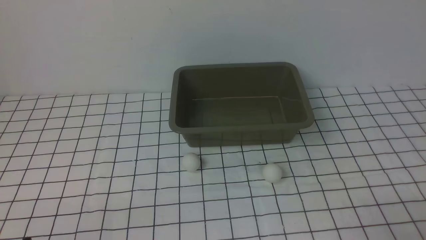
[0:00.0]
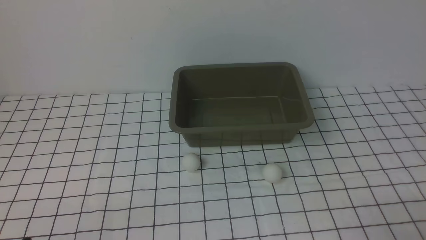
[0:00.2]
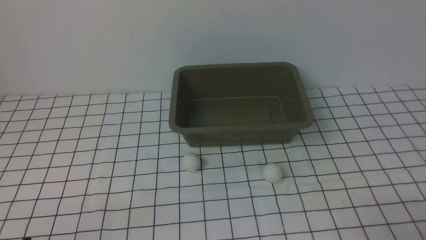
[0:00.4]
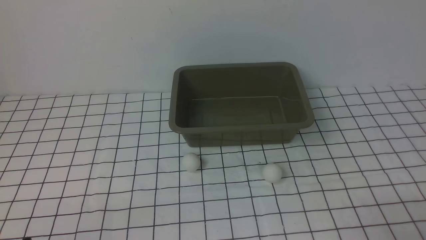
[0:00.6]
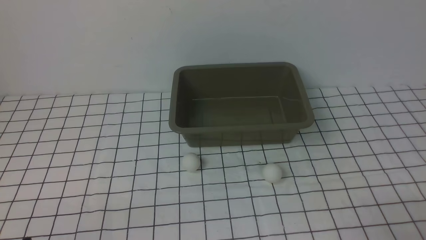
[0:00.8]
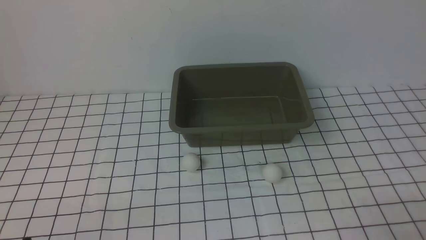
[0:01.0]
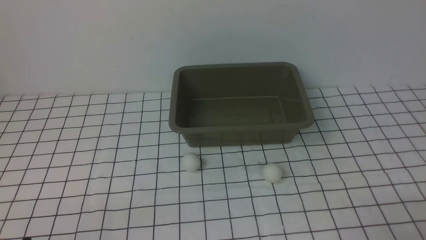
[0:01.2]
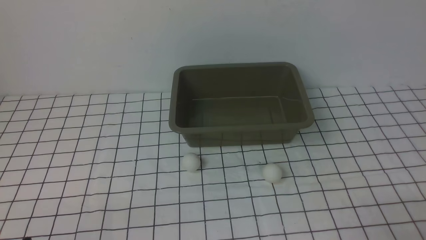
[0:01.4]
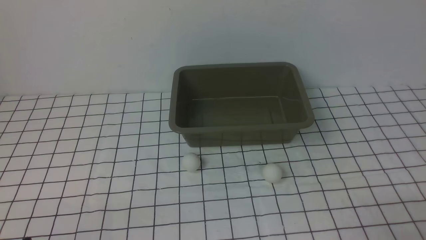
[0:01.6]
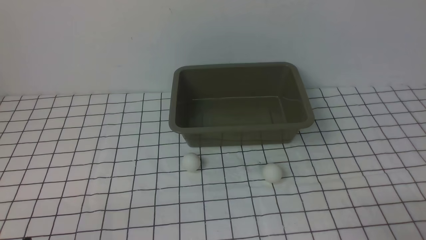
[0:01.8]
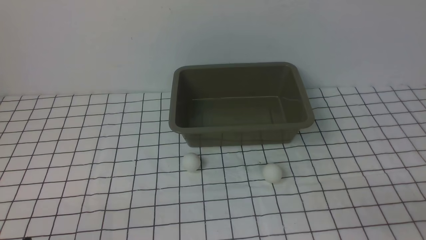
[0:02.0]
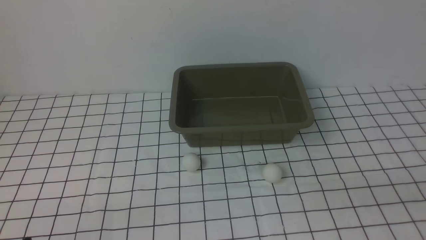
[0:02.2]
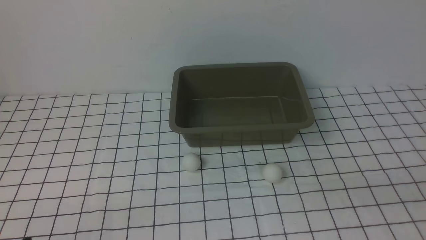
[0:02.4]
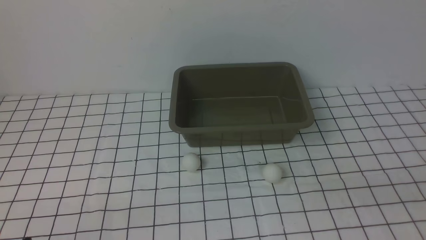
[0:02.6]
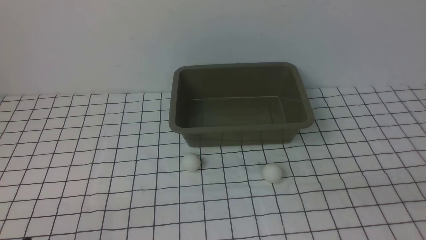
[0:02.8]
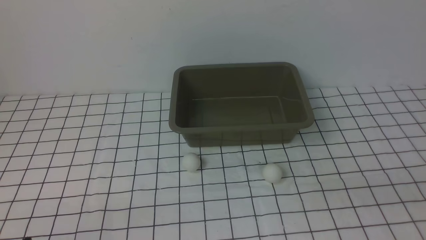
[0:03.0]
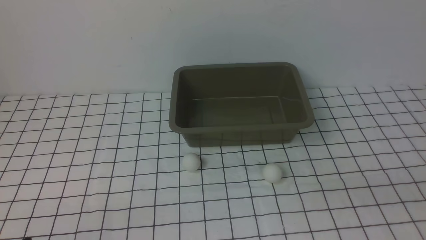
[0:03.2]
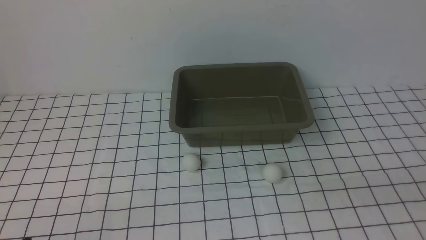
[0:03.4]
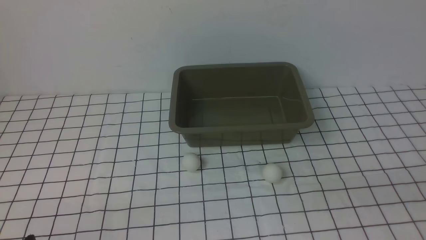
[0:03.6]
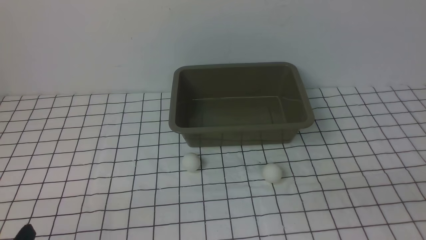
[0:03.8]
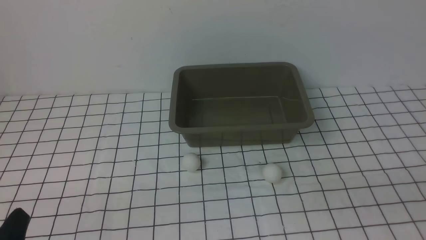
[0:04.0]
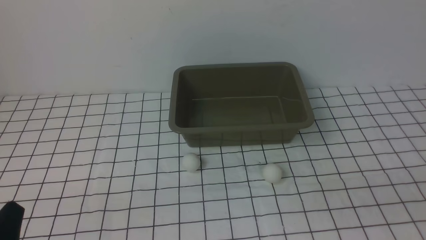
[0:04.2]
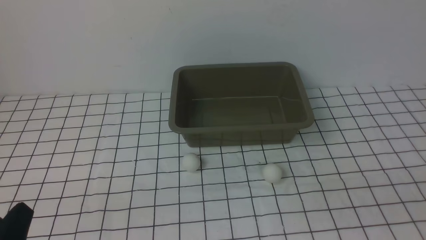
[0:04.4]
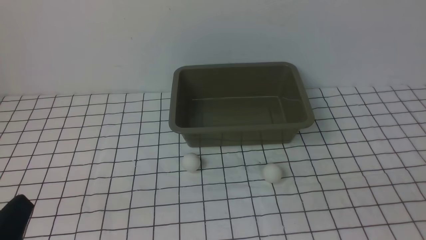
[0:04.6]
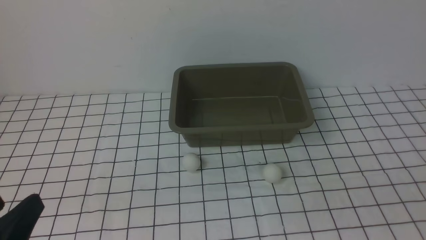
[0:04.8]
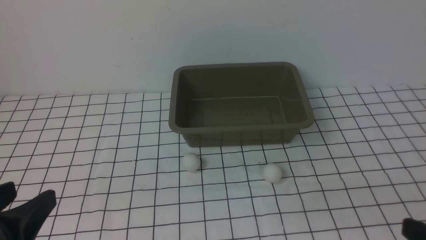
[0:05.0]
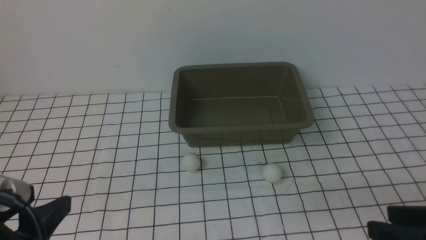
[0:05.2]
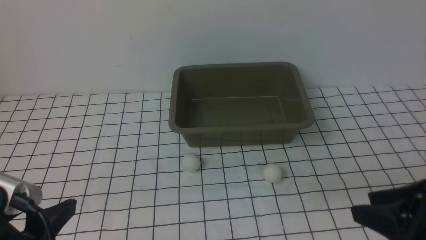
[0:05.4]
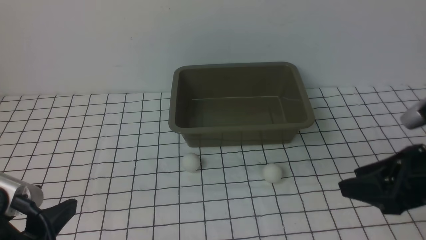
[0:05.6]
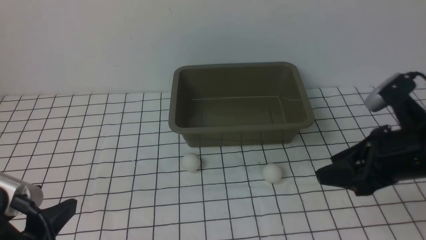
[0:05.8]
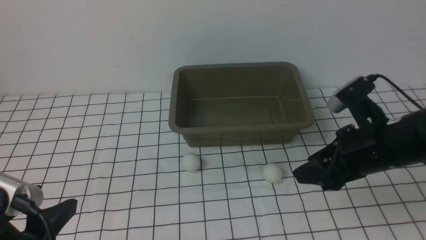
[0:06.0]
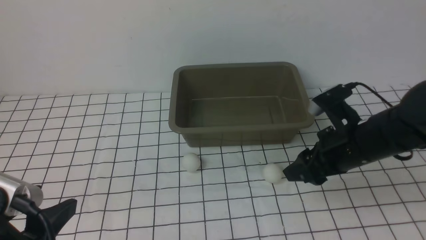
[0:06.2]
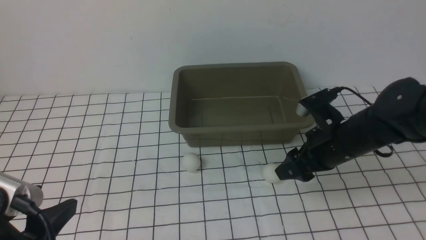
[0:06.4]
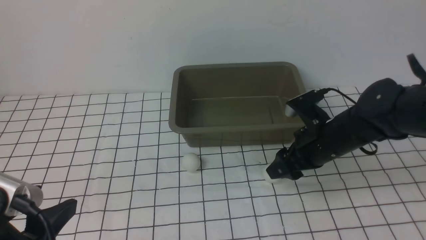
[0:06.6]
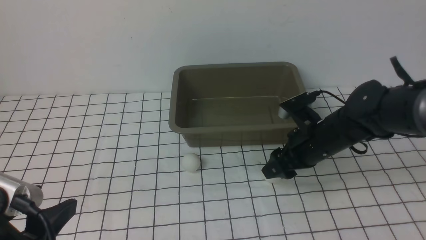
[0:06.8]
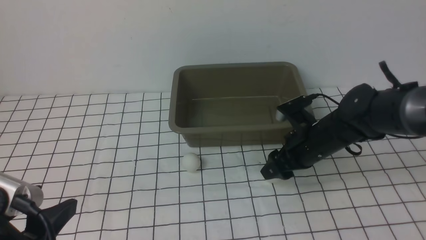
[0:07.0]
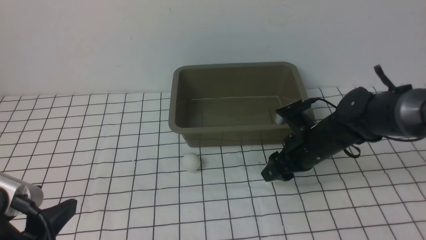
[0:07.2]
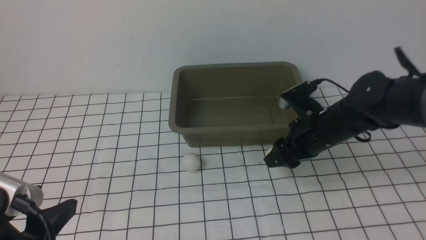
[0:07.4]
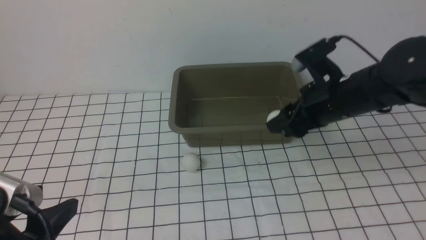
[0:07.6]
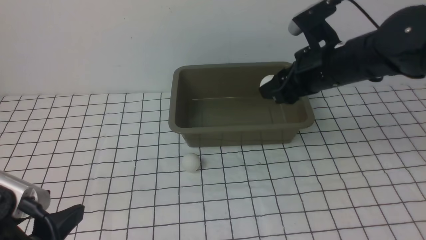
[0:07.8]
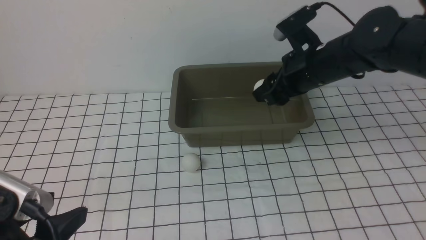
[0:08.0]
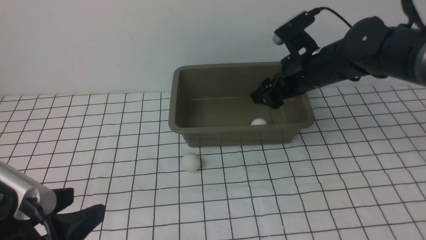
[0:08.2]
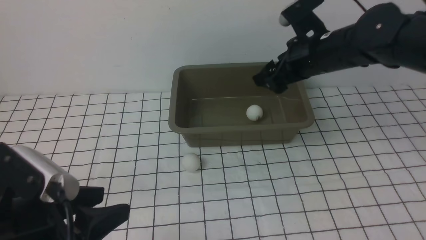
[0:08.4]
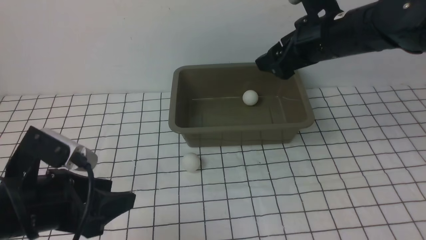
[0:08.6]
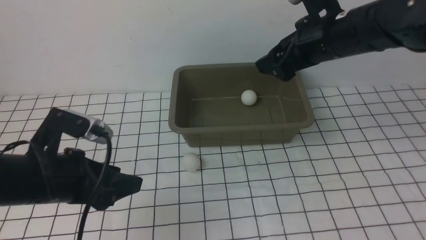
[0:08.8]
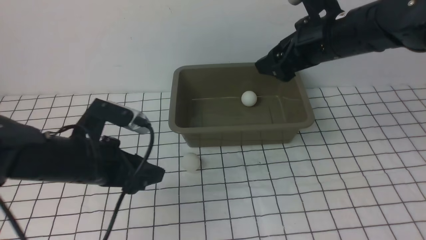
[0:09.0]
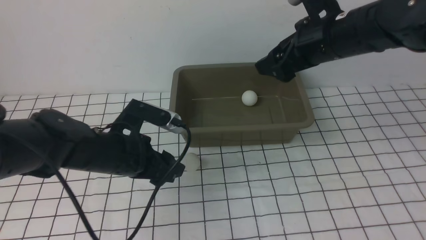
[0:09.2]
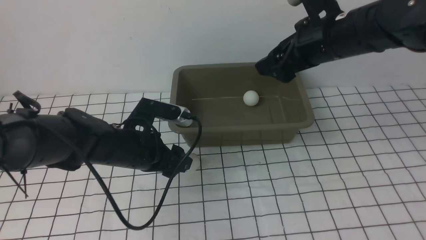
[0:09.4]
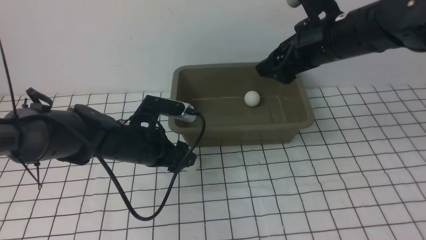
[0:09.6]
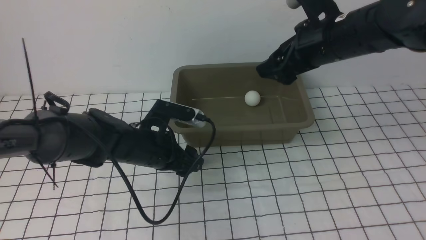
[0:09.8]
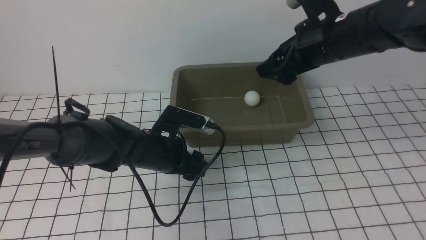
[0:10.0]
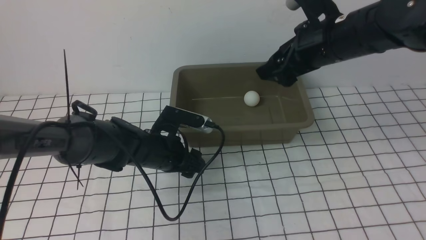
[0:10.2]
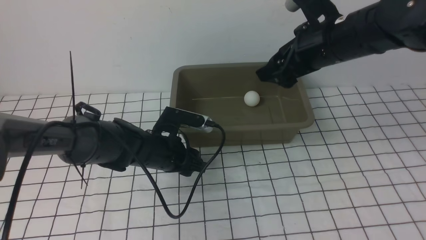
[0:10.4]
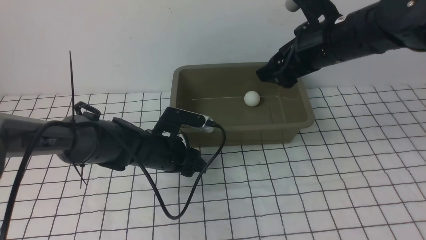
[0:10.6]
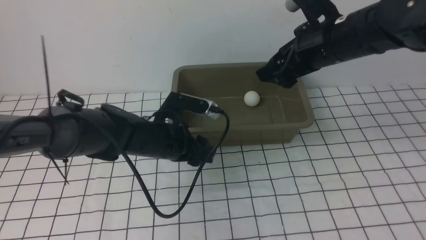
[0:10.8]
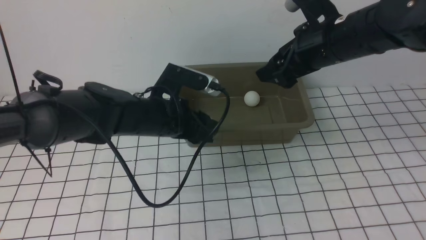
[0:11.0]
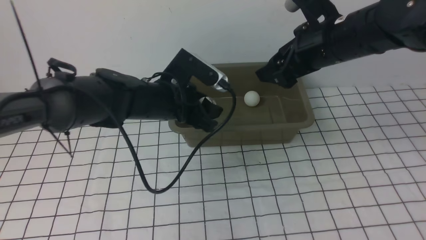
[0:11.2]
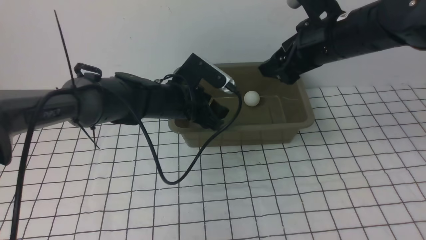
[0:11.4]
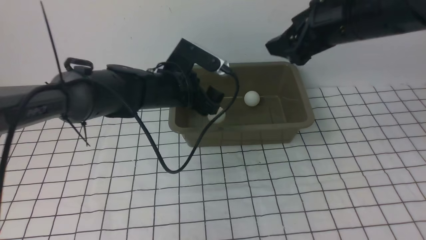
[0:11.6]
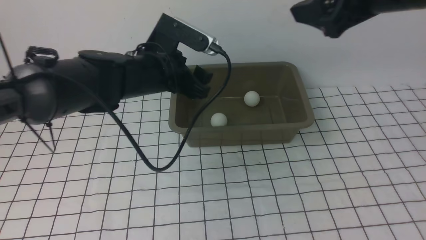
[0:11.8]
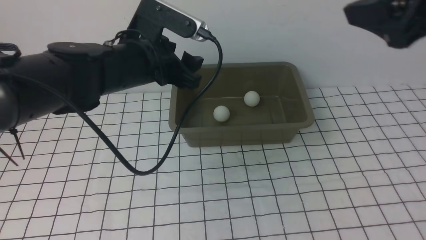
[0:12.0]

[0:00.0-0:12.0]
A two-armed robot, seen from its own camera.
Step, 0:00.0 to 0:07.4: use the right arm to clamp the table tennis ball closest to it.
Step, 0:07.8 to 0:08.2: use the right arm to put the table tennis ball into the box.
Step, 0:08.4 to 0:10.8: use the left arm to clamp the table tennis ball closest to it.
Step, 0:11.0 to 0:11.6: use the left arm to put the table tennis ball into the box.
0:00.0 to 0:01.6: The two grippers keep their place.
0:04.4 to 0:06.0: The left gripper is displaced upward by roughly 5 cm. Meanwhile the right gripper heads forward, covering approximately 25 cm.
0:06.0 to 0:07.6: The right gripper goes approximately 10 cm forward, and travels downward and back again, roughly 10 cm each way.
0:07.6 to 0:09.0: The left gripper shifts some 20 cm forward; the right gripper travels upward by about 5 cm, and opens.
0:09.0 to 0:10.4: The left gripper heads downward, forward and to the right, covering about 10 cm, and closes.
0:10.4 to 0:12.0: The left gripper is displaced upward by some 15 cm, and opens its fingers, while the right gripper travels backward, upward and to the right by about 20 cm.

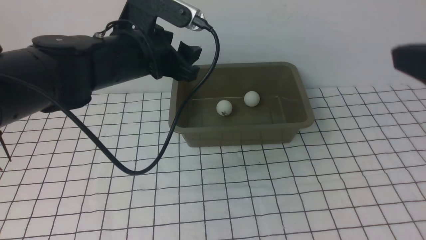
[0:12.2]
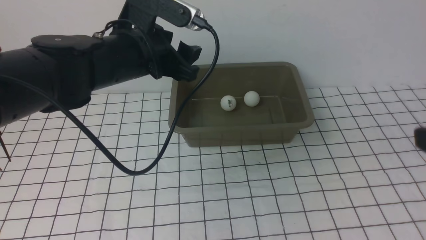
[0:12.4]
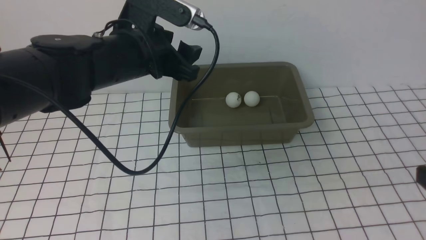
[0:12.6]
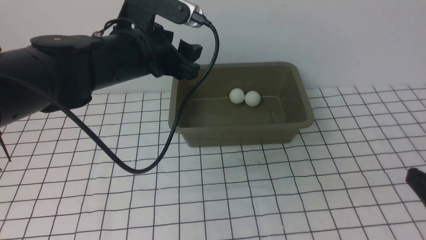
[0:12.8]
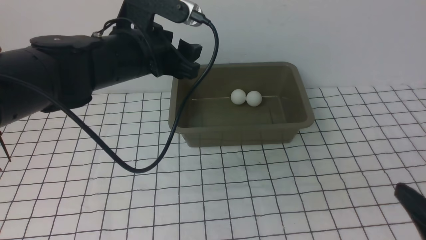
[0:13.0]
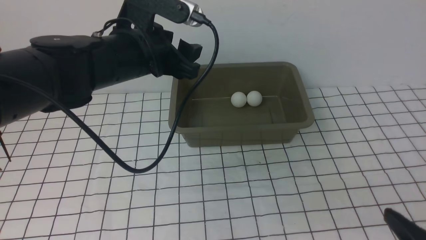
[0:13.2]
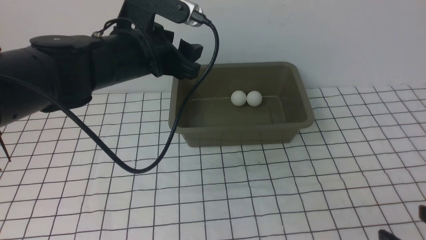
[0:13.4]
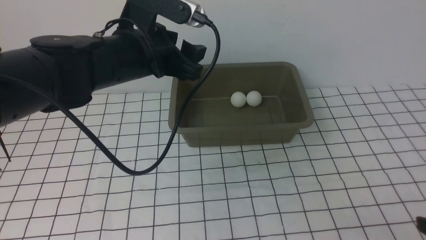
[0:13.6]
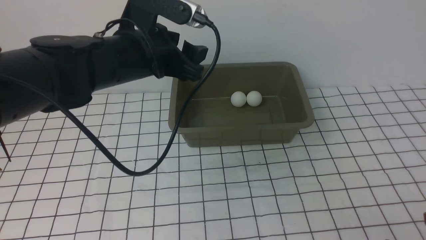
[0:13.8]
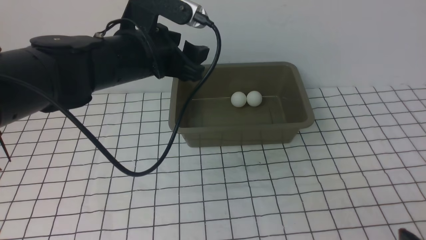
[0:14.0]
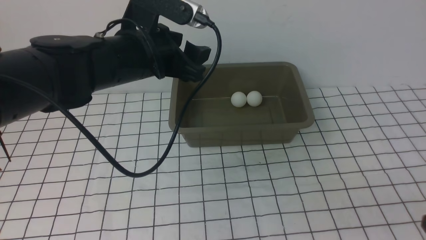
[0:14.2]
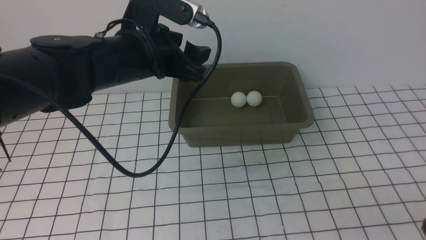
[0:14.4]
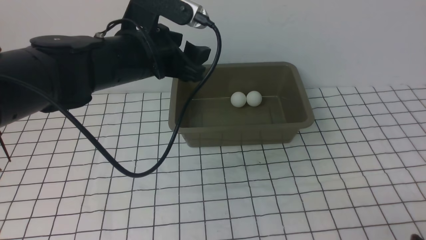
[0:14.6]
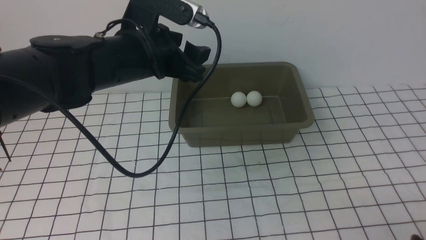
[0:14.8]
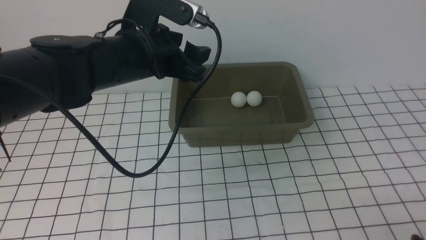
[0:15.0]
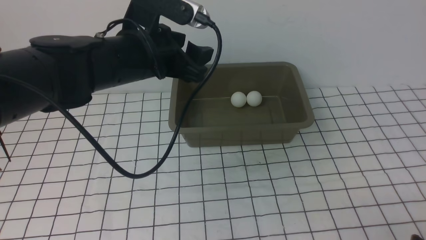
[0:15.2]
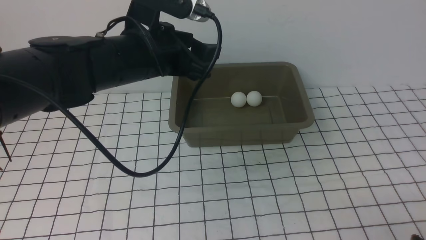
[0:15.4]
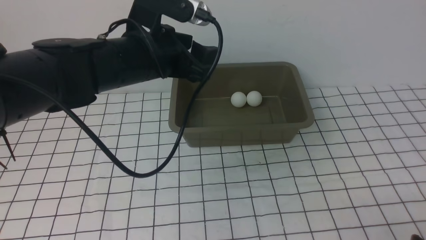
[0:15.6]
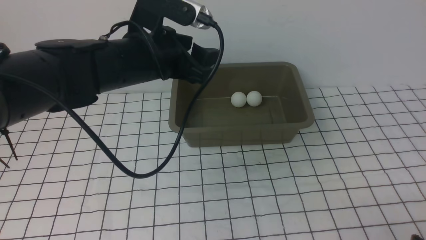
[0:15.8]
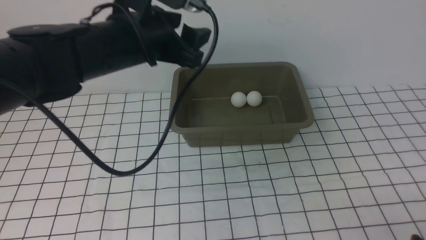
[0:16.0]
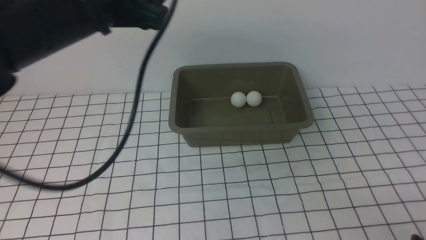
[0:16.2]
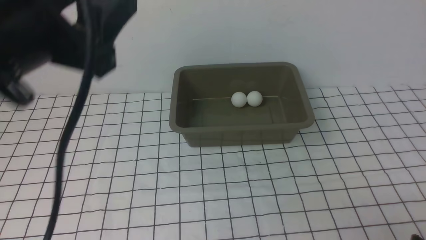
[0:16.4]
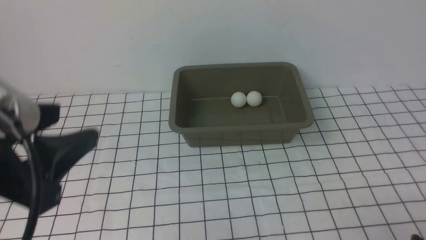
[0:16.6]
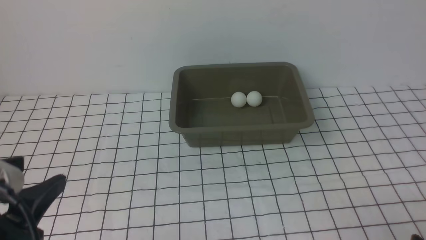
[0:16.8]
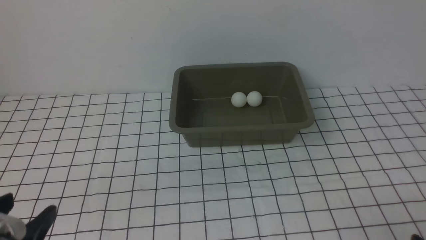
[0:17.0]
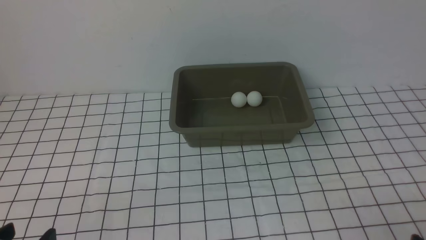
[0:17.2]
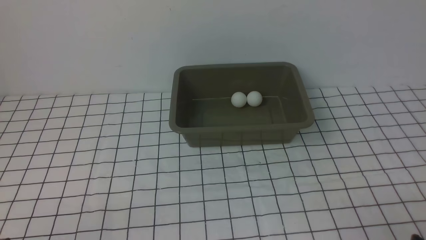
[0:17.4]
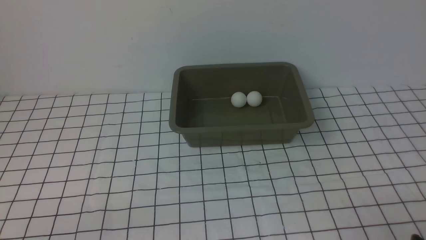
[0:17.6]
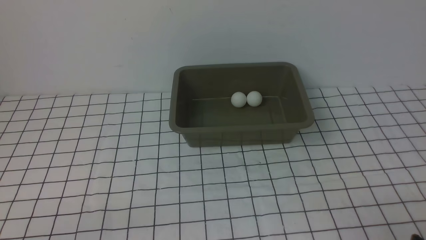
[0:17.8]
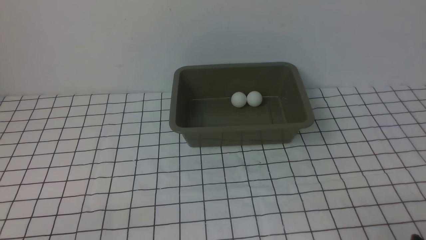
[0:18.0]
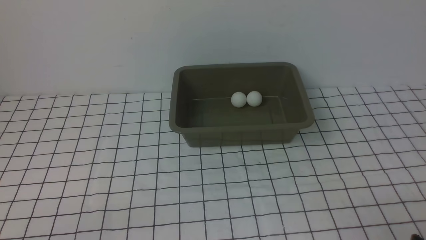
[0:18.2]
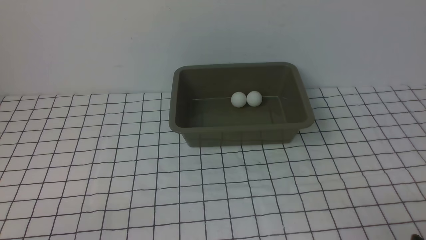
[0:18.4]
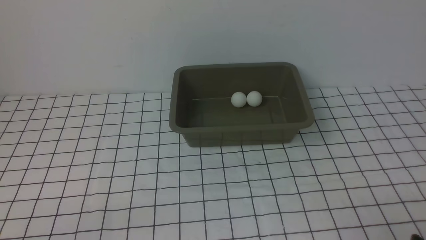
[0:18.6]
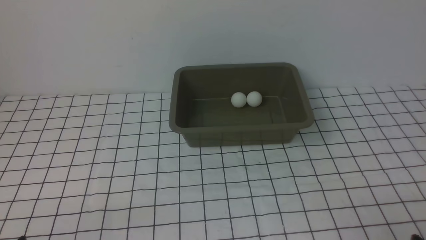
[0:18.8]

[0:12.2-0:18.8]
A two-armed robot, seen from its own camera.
0:12.2 to 0:13.8: The right gripper is displaced downward and backward by roughly 20 cm.
0:13.8 to 0:15.4: The grippers move only a little.
0:15.4 to 0:17.2: The left gripper moves backward, to the left and downward, approximately 35 cm.
